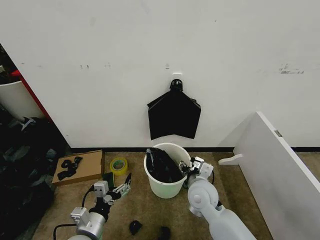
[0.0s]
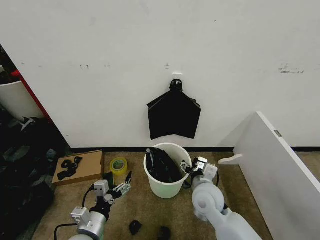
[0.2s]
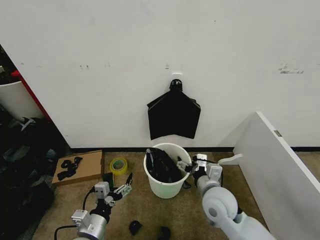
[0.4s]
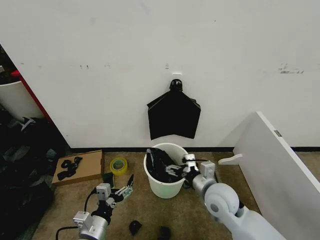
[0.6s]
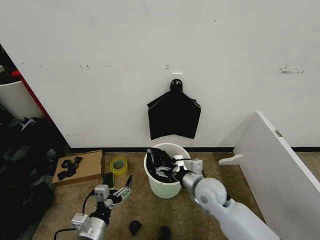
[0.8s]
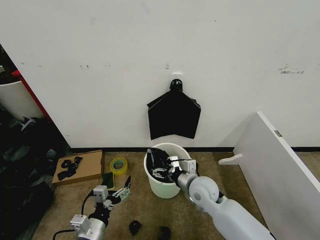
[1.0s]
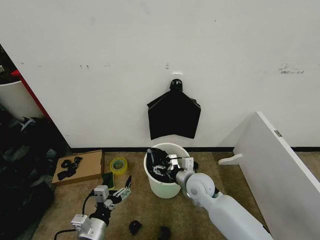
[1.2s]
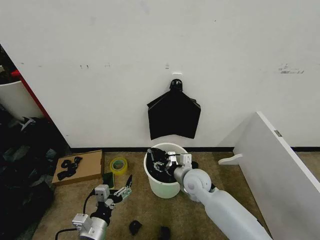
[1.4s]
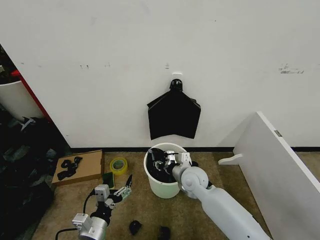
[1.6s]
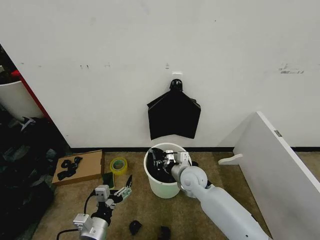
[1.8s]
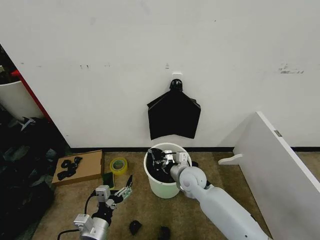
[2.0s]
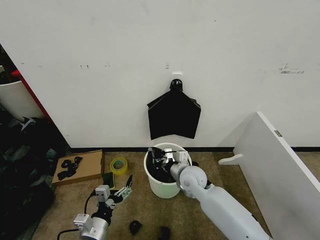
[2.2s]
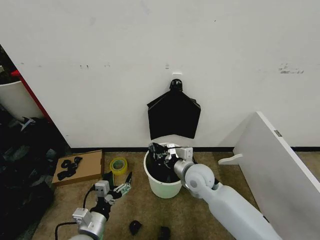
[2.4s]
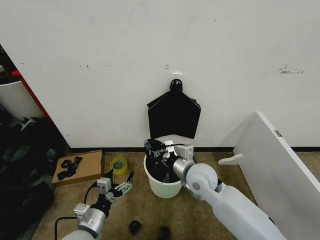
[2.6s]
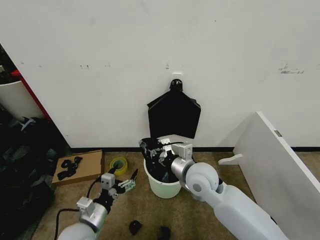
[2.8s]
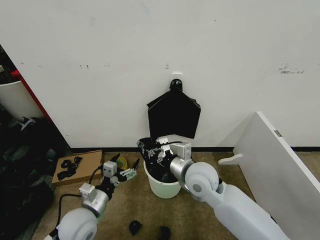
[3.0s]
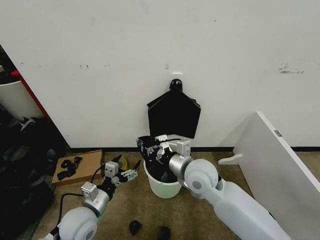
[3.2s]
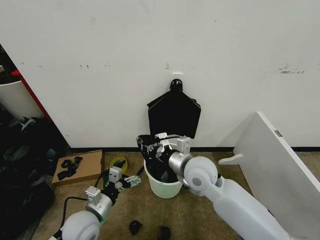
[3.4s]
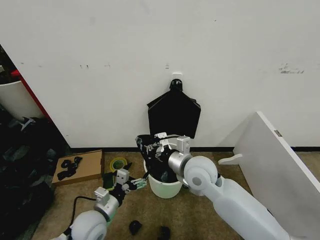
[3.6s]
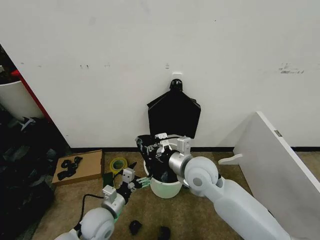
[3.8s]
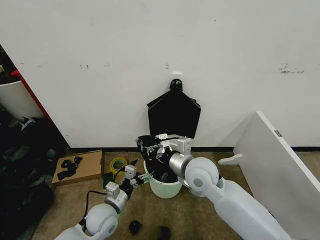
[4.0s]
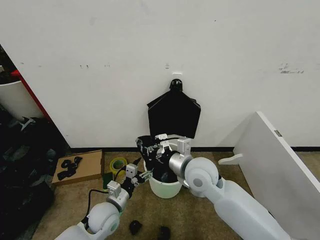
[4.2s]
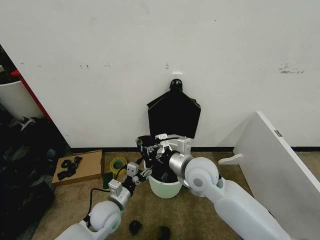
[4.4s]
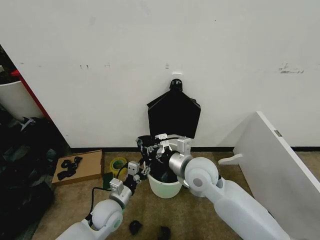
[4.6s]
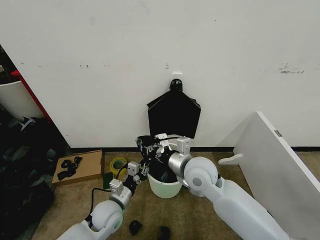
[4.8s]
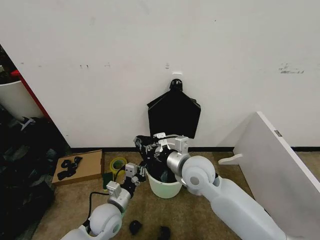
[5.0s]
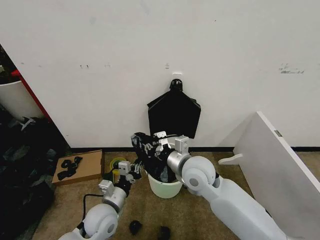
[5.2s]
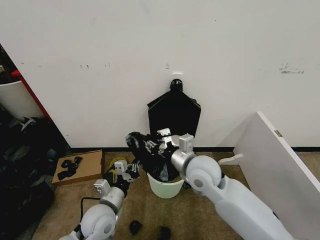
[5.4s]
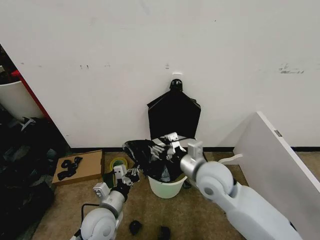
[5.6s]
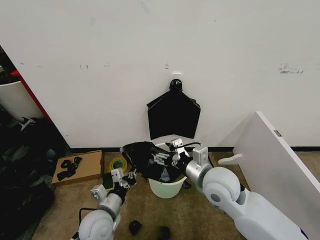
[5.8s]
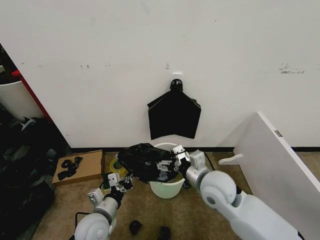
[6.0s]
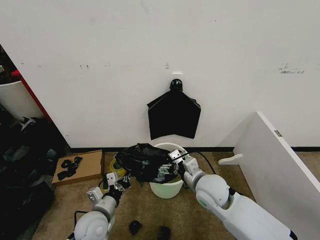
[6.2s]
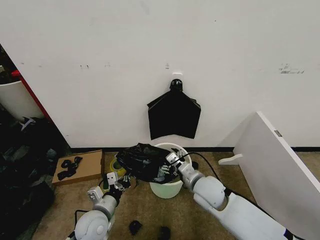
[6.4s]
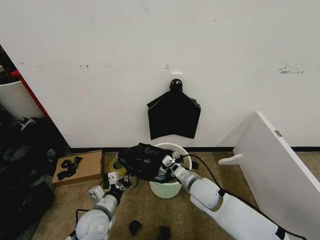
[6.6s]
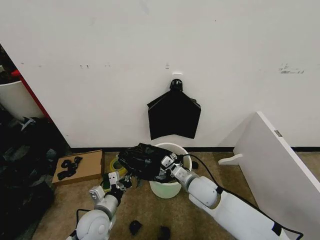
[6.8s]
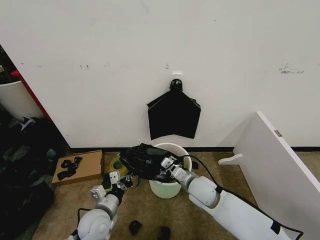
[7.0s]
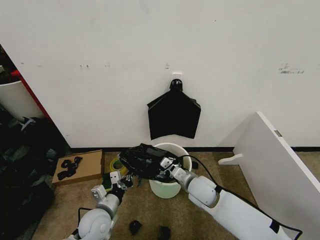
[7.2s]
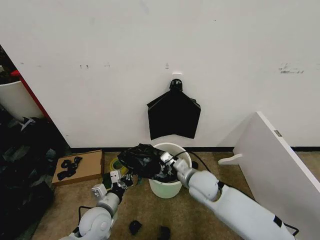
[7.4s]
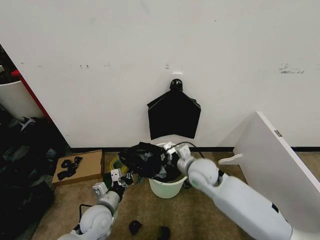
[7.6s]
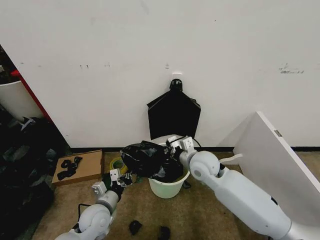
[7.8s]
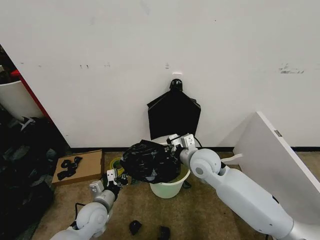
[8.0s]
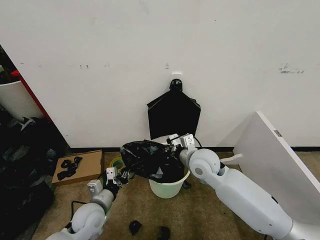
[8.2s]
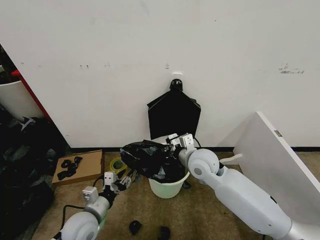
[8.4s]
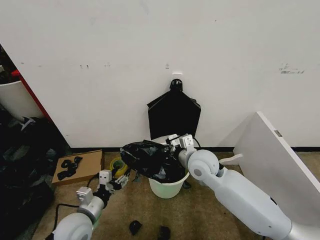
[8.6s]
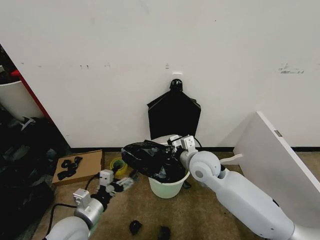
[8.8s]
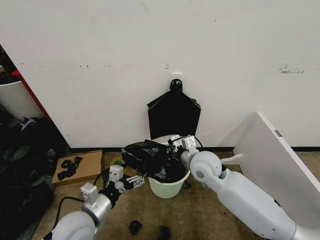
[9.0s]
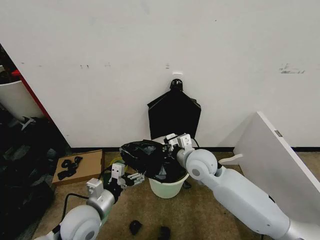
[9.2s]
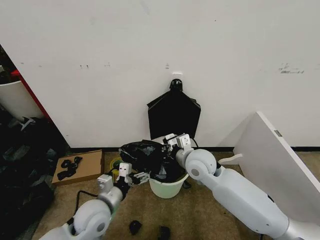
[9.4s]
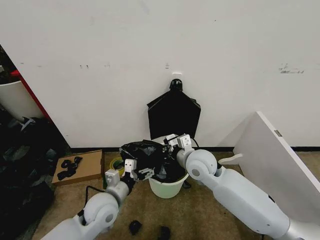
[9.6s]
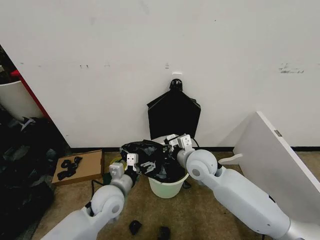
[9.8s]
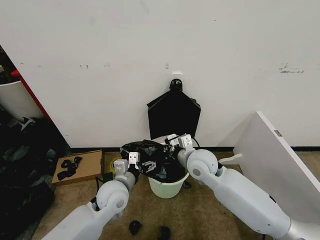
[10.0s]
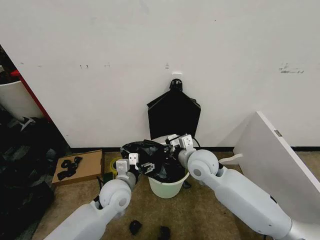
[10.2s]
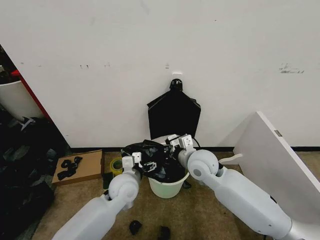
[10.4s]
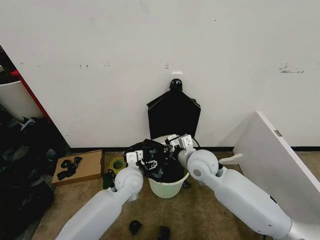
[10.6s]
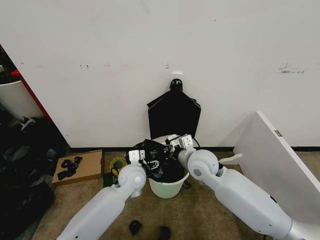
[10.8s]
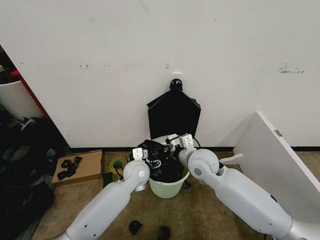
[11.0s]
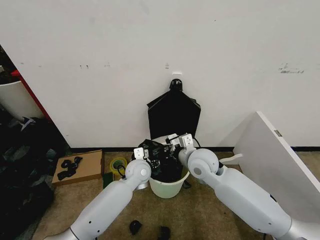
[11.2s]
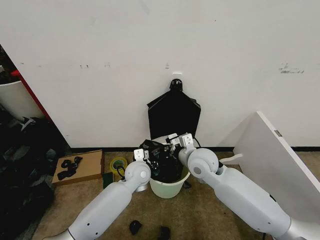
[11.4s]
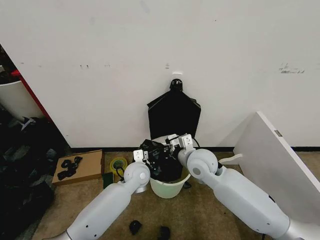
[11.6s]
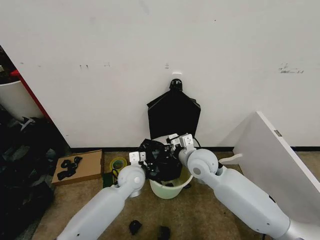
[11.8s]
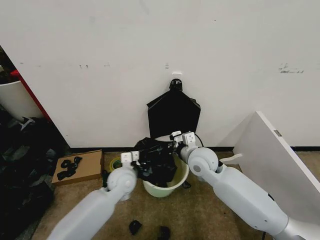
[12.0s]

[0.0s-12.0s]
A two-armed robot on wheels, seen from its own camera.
Task of the whole recording: Place the garbage bag over the trash bin.
0.0s to 1.6s: The right gripper travels forward by roughly 5 cm.
1.6s to 3.0s: The left gripper heads forward, covering roughly 5 cm. Meanwhile the right gripper is displaced upward by some 10 cm, and closes up.
3.0s to 4.4s: The left gripper travels downward and to the right by roughly 10 cm, and closes up.
4.4s to 6.0s: The right gripper shifts by approximately 5 cm, and opens up; the left gripper shifts by about 5 cm, and closes.
6.0s to 7.6s: The right gripper shifts about 5 cm forward, moves roughly 10 cm downward and comes back, and closes up.
7.6s to 9.0s: The left gripper goes some 10 cm upward, and opens.
9.0s to 10.4s: The left gripper is displaced forward and to the right by some 15 cm.
10.4s to 12.0s: The left gripper closes up.

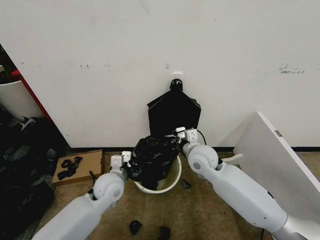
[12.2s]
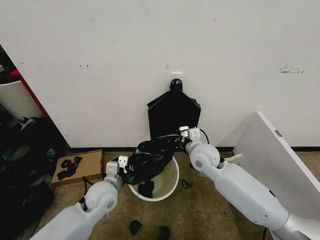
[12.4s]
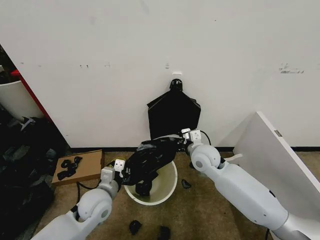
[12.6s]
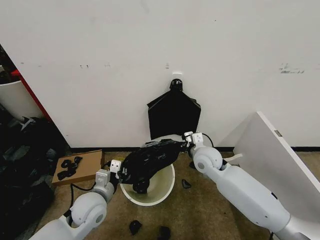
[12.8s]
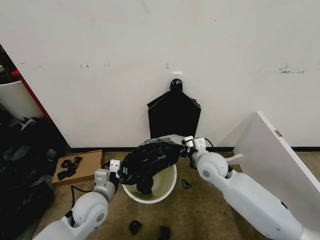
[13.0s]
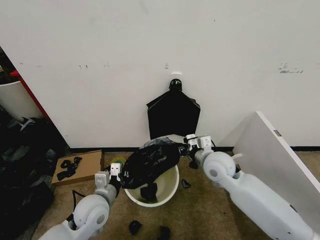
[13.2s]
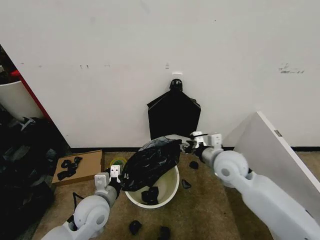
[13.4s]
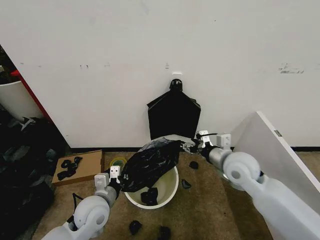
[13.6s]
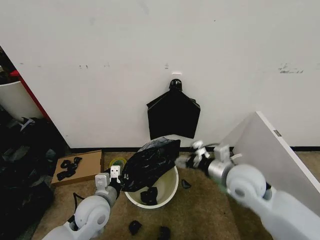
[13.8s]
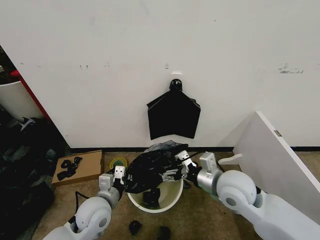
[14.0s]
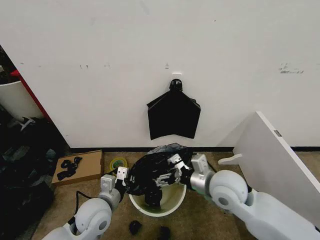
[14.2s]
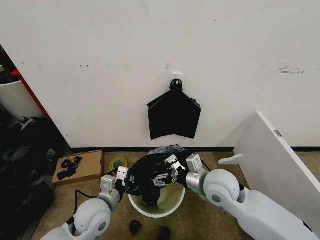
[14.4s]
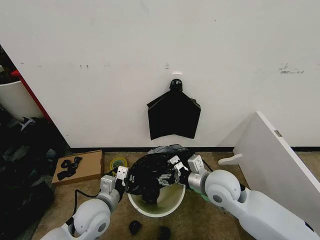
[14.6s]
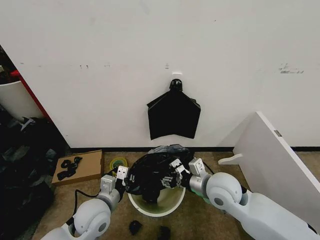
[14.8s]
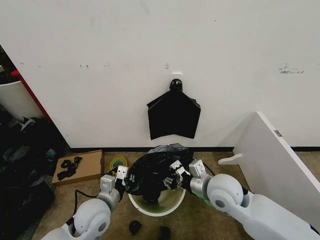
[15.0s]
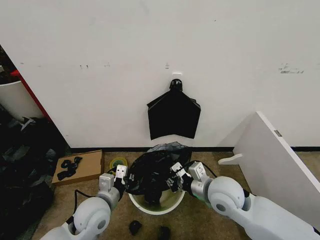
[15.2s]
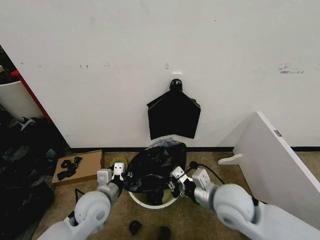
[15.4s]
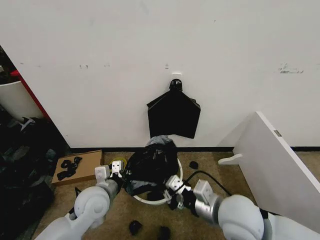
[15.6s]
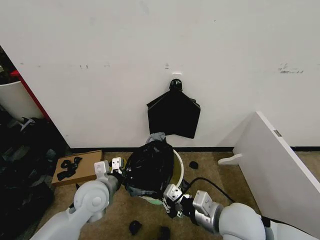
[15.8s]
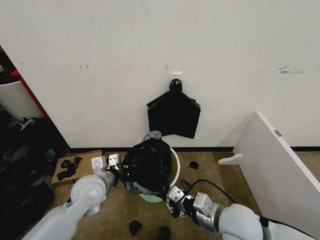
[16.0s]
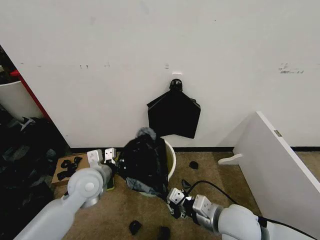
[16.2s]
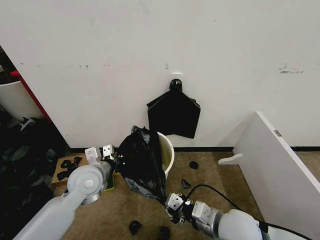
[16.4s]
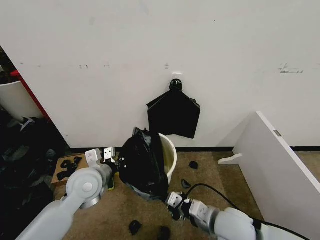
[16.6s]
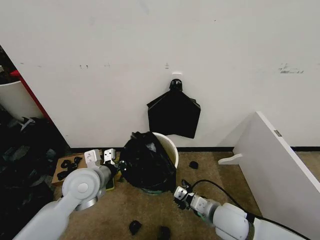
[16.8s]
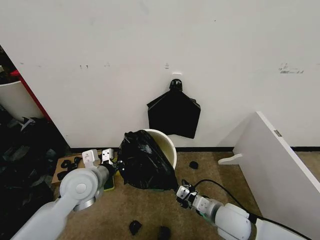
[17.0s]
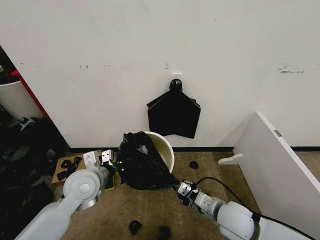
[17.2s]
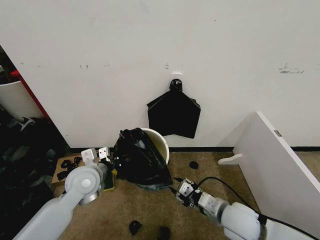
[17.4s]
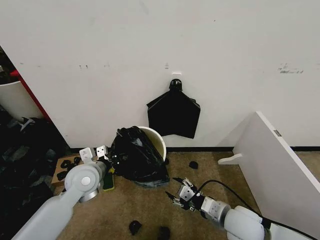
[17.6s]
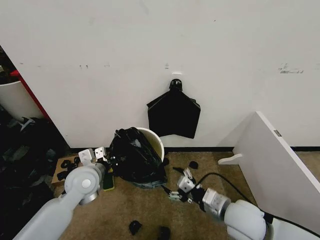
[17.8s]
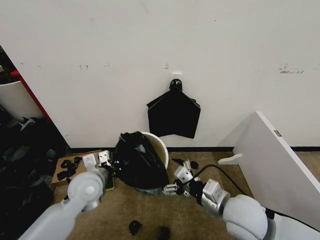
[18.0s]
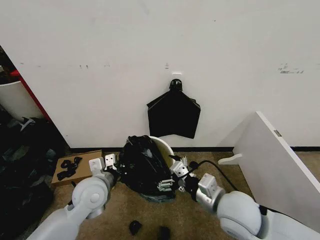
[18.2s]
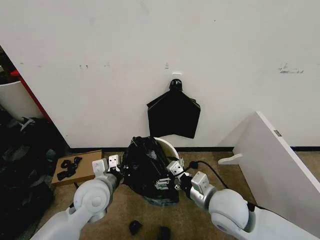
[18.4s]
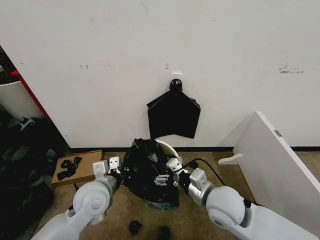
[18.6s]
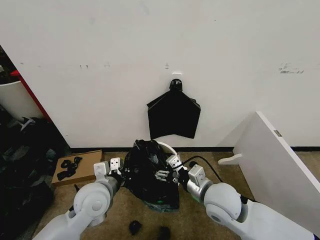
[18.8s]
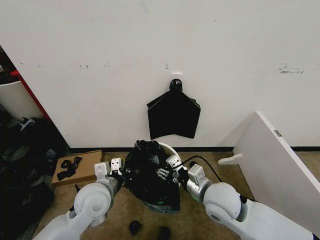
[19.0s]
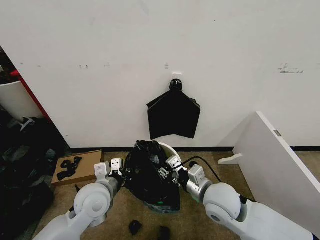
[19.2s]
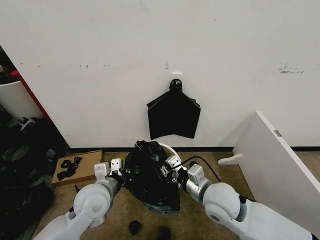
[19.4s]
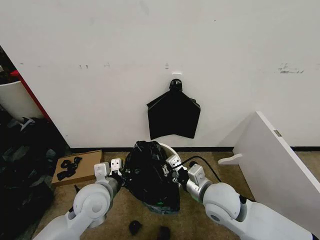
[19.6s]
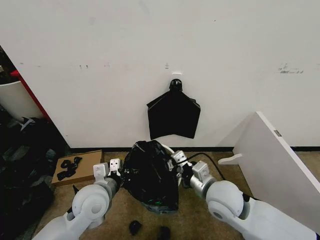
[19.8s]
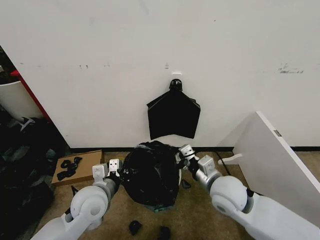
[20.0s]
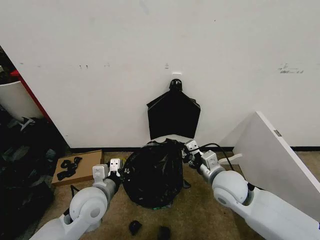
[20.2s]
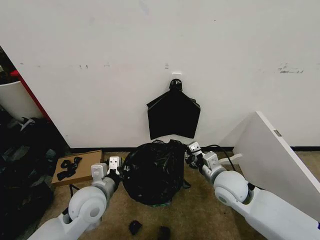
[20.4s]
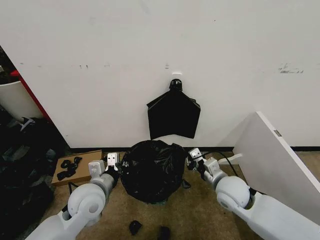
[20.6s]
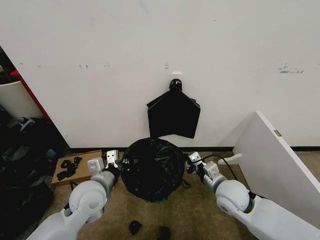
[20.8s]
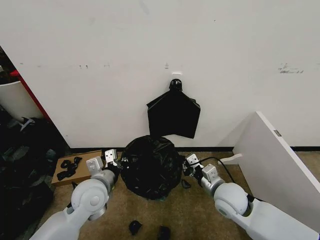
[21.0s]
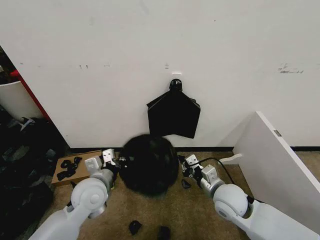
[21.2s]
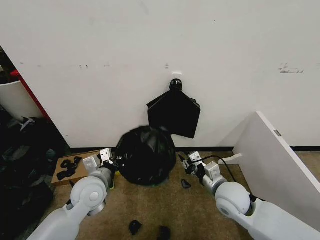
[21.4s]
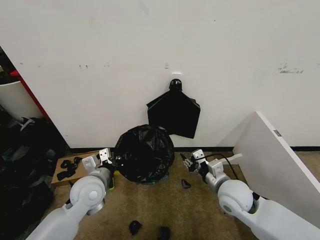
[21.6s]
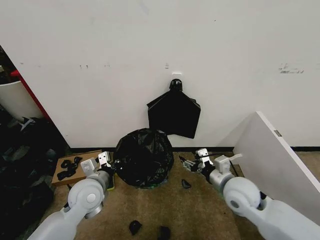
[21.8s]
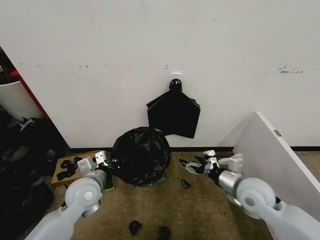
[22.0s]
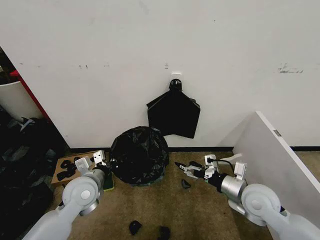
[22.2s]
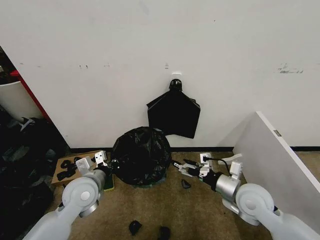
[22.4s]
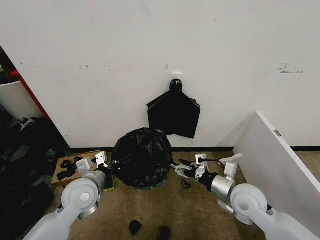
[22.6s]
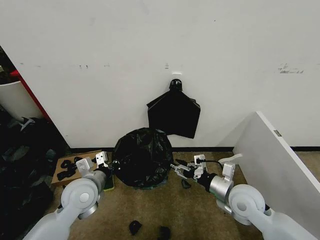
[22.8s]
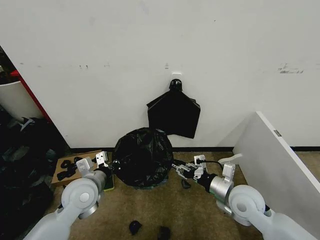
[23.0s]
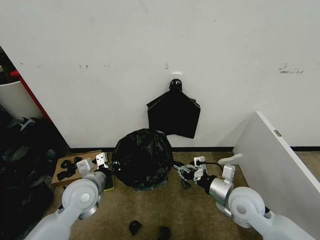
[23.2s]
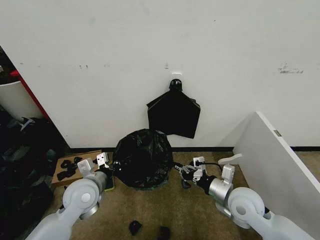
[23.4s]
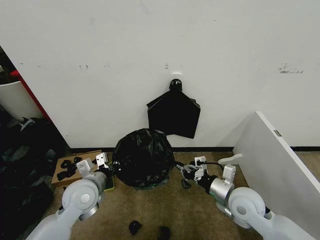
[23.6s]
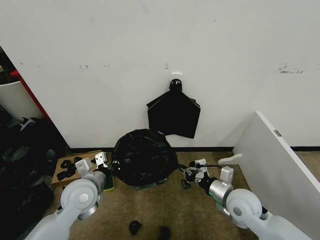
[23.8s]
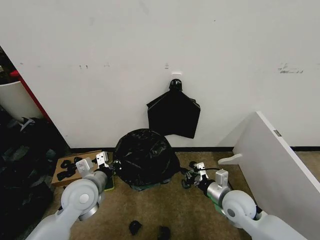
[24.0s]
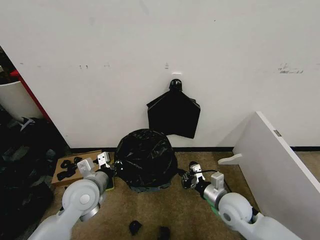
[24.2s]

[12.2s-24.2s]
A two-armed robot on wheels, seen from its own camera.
Task of the whole recording: Place the garbage bag over the trash bin.
12.2s to 13.8s: The left gripper shifts some 10 cm backward, while the right gripper travels backward and to the right by roughly 15 cm, and opens.
13.8s to 15.2s: The right gripper changes place by roughly 5 cm, and closes up.
15.2s to 16.6s: The left gripper is displaced upward and forward by approximately 10 cm. The right gripper goes about 10 cm backward.
16.6s to 18.2s: The right gripper opens up.
18.2s to 19.8s: The right gripper shifts by about 5 cm, and closes.
19.8s to 21.2s: The right gripper heads downward, covering approximately 5 cm.
21.2s to 22.6s: The right gripper opens up.
22.6s to 24.2s: The right gripper is displaced downward by some 5 cm, and closes.
